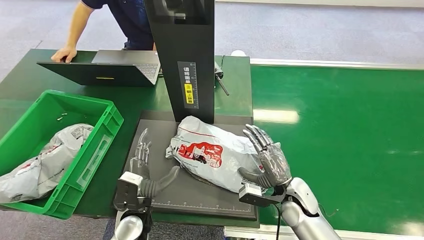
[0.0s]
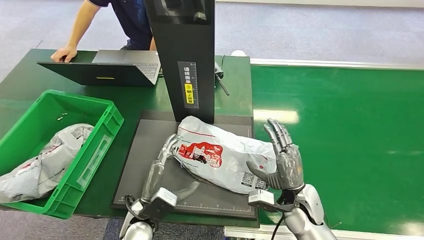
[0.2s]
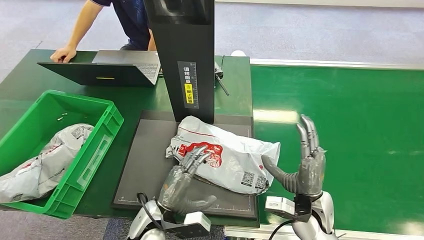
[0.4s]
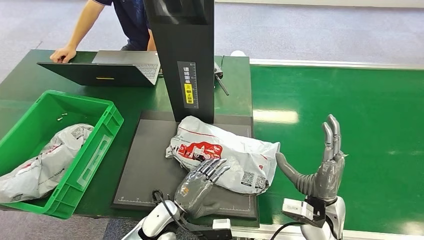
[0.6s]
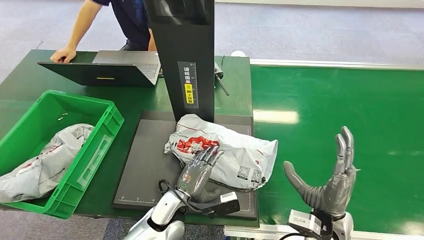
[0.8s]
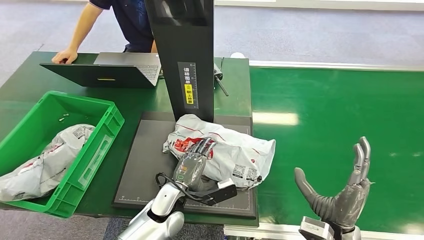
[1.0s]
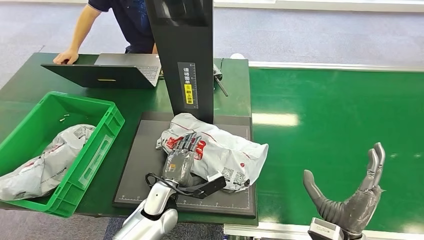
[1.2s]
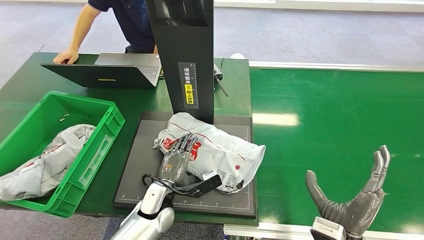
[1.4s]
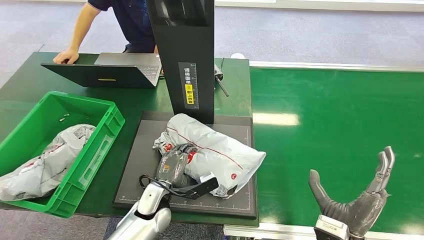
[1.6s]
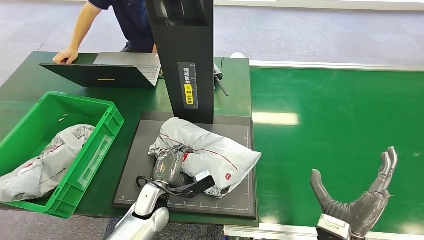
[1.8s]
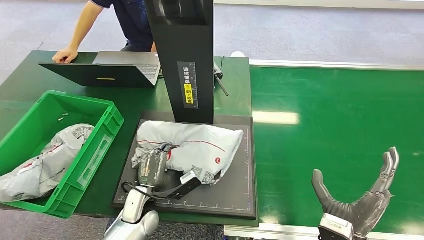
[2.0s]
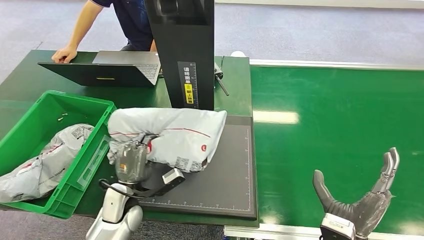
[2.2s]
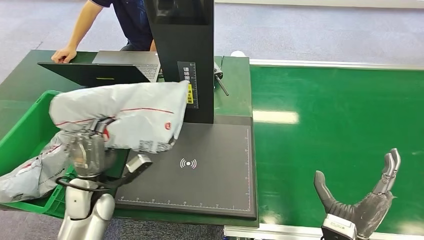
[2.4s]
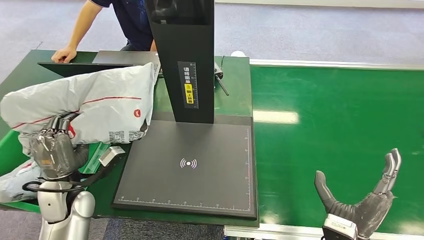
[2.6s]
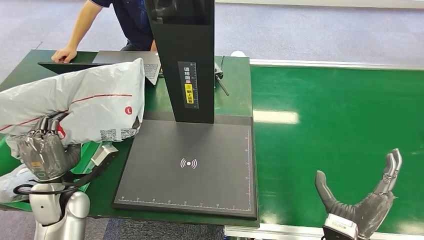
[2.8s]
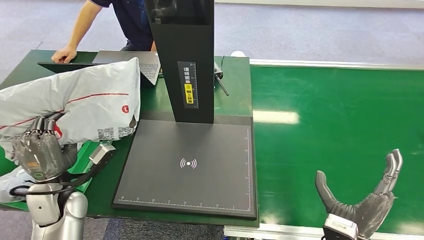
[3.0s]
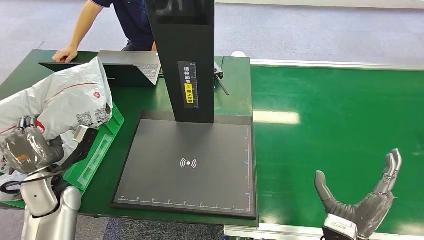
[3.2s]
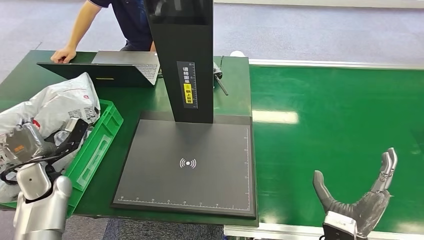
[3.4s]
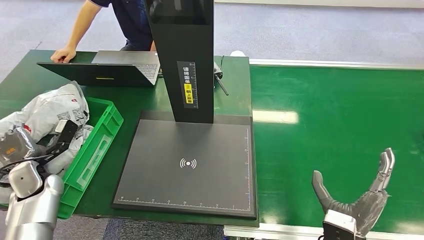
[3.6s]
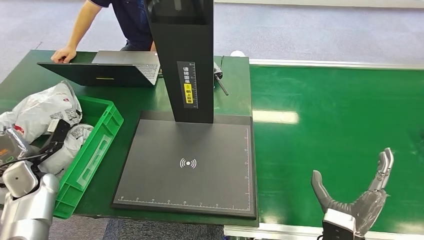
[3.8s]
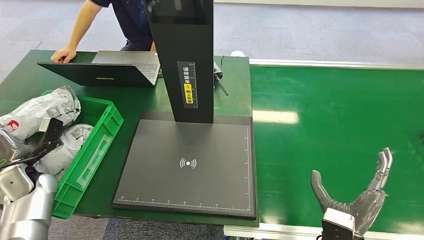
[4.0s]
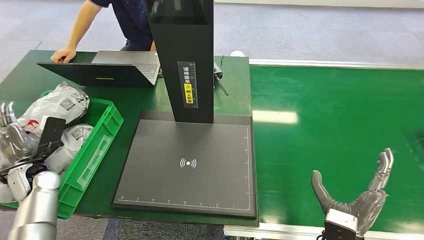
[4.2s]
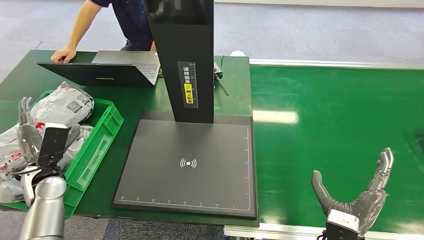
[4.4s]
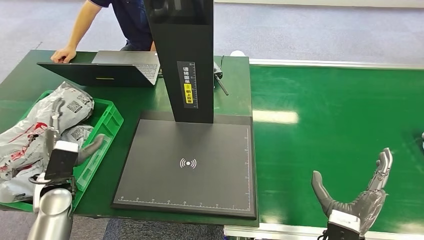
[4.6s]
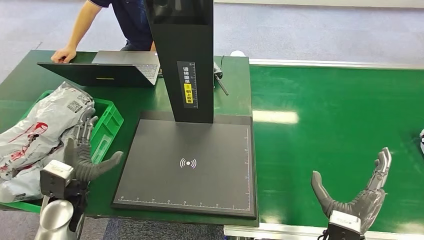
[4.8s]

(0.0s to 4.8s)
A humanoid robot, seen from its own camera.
Step, 1.0s - 2.4s: Pick up the package from the inbound machine.
Step, 2.6s - 4.8s: Place the package into the parcel locker.
3.2s - 4.8s: The left hand moves approximately 10 cm to the left and comes back.
